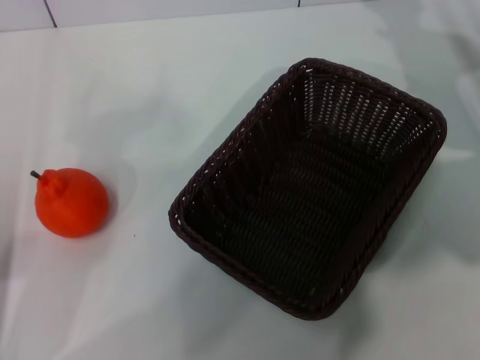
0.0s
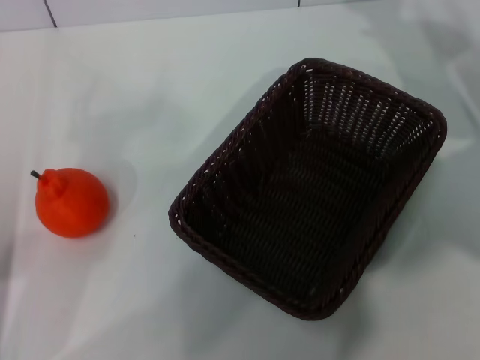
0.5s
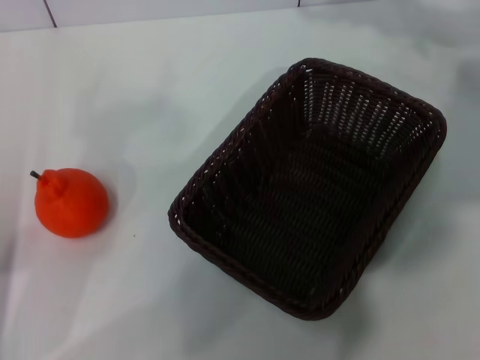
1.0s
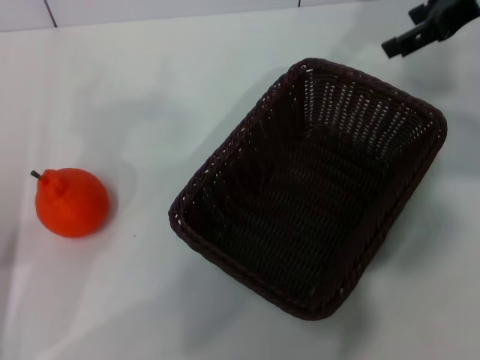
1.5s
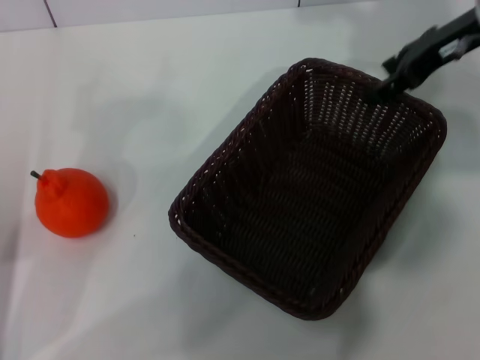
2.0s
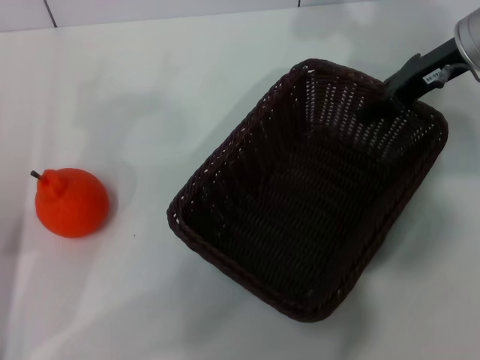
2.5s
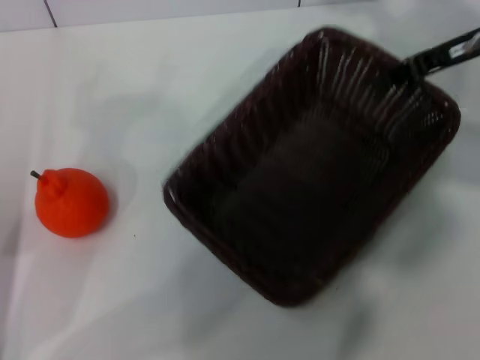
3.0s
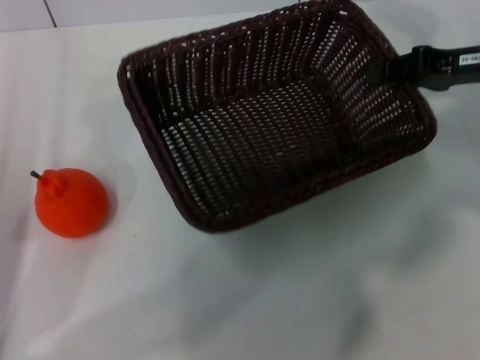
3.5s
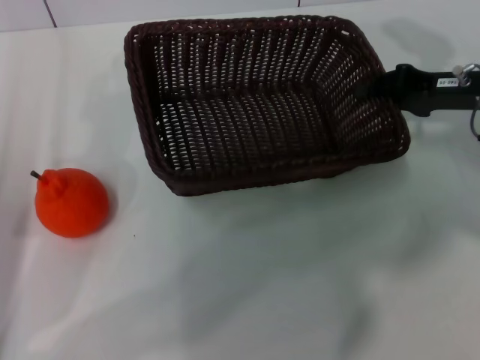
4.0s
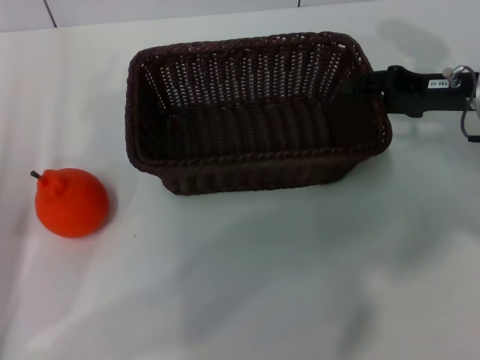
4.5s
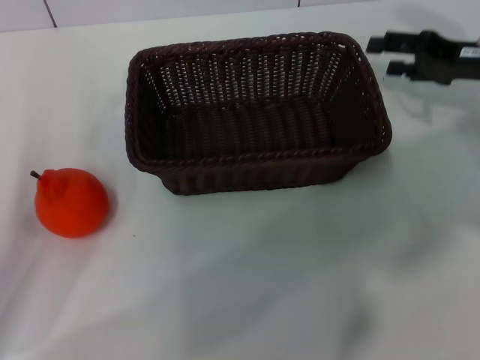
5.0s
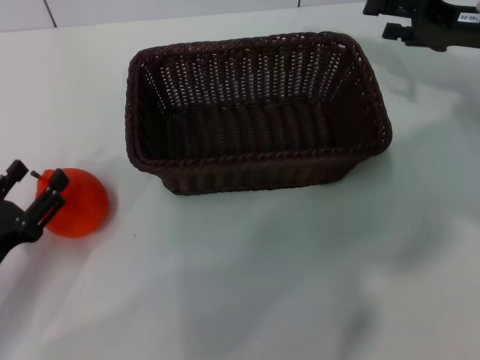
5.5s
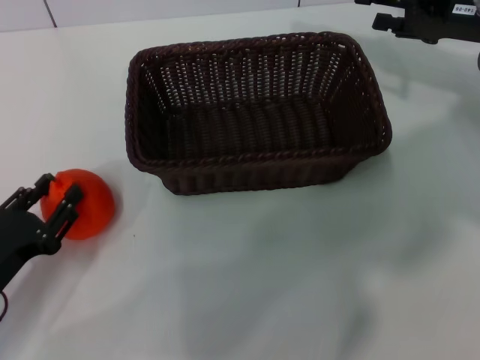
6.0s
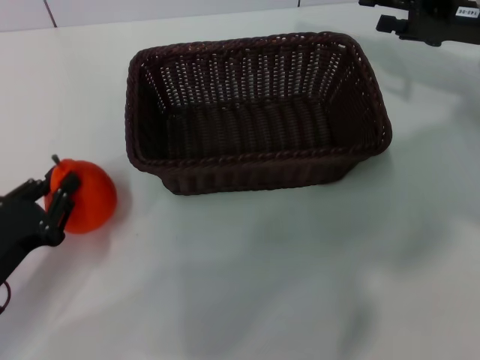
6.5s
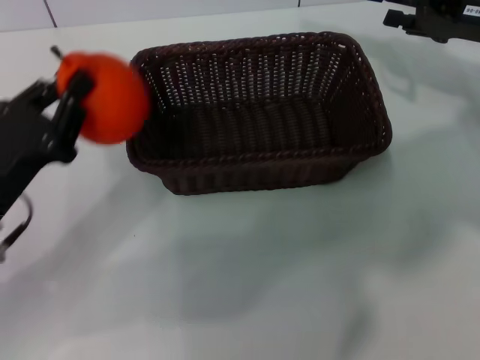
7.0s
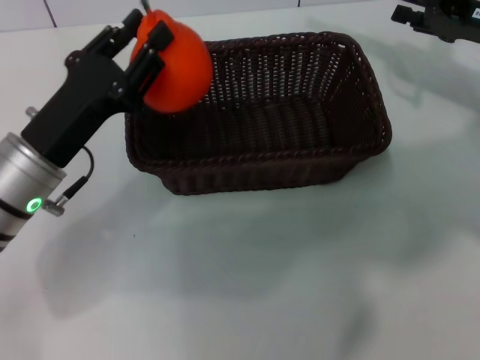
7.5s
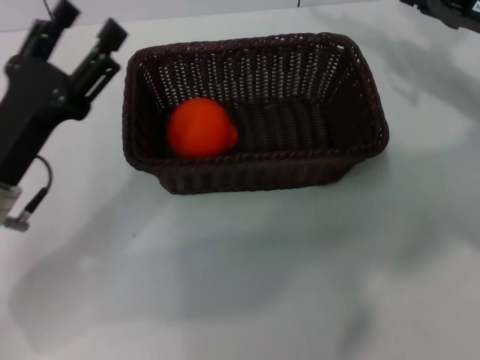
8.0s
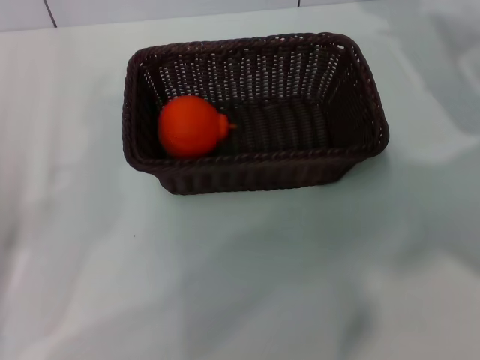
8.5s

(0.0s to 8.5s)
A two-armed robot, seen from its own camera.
Task of the whole recording: the right gripper pick up the black basket and place it horizontally in the middle of the table, the left gripper pick up the orange and place it into the black basket.
Step, 0.0s - 3.0s: Pick up the dark basket with the right gripper.
Step, 3.5s - 4.5s: Place the dark basket in the center of view with the right gripper.
Step, 5.5s - 6.5s: Pick up the orange with the left gripper.
Step, 7.0s - 7.5s: Place the orange into the dark basket with the left gripper.
0.0s - 2.0s: The right gripper is displaced upward by roughly 10 cm.
2.0s - 4.0s: The right gripper shifts about 10 cm downward and backward, and closes its fingers.
4.0s - 6.5s: The right gripper opens up. The left gripper ends up roughly 5 cm from where it was, and closes its fingers.
6.5s - 8.5s: The left gripper goes roughly 5 cm upward, travels to the right and back again, about 10 cm each way, and opens its fingers.
